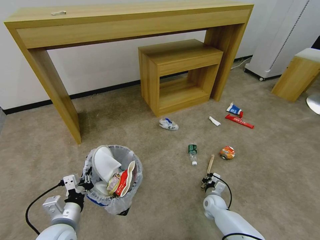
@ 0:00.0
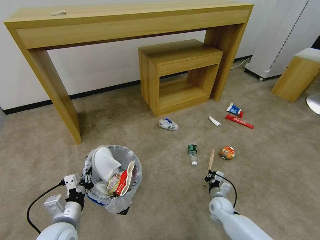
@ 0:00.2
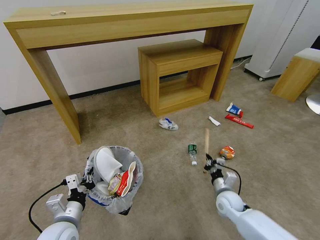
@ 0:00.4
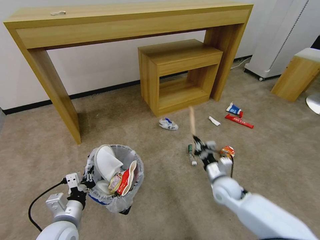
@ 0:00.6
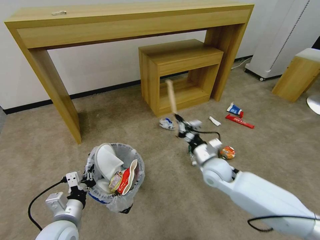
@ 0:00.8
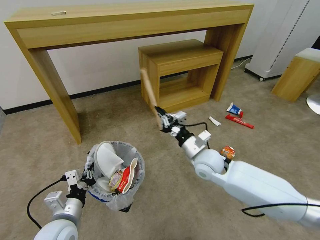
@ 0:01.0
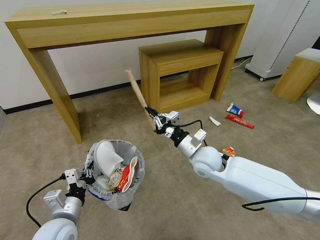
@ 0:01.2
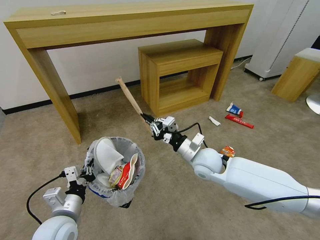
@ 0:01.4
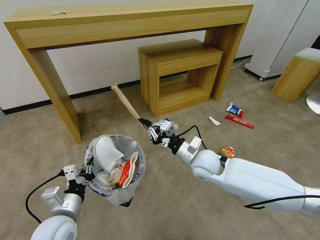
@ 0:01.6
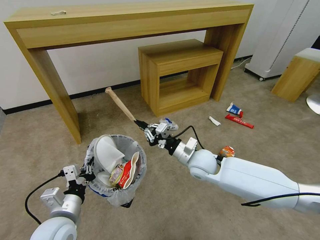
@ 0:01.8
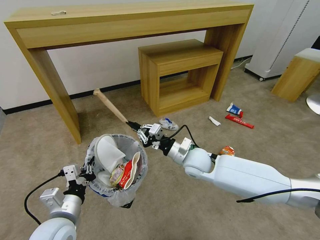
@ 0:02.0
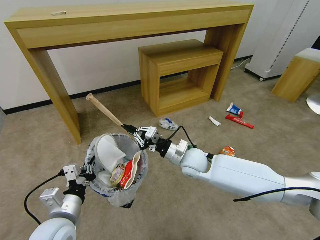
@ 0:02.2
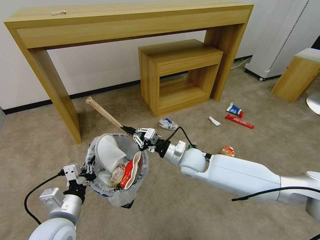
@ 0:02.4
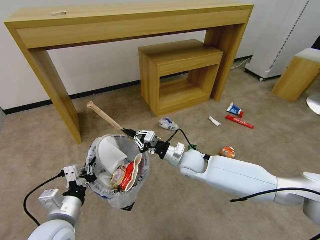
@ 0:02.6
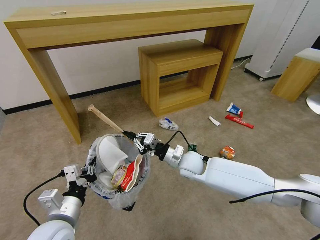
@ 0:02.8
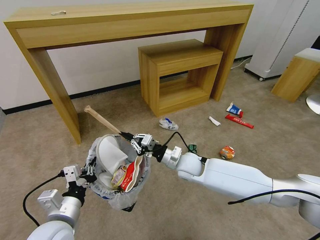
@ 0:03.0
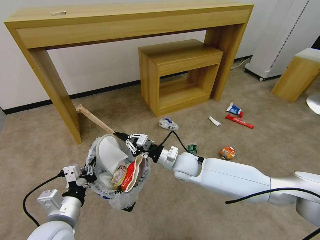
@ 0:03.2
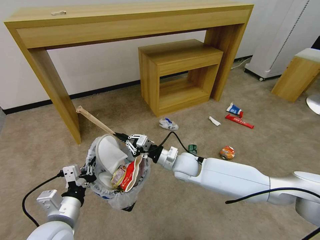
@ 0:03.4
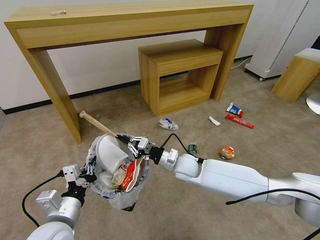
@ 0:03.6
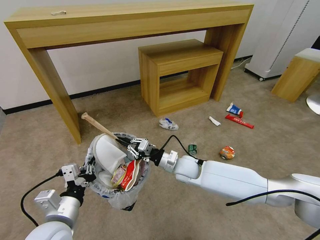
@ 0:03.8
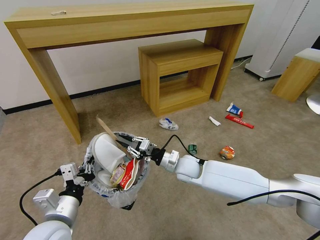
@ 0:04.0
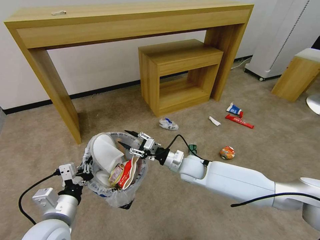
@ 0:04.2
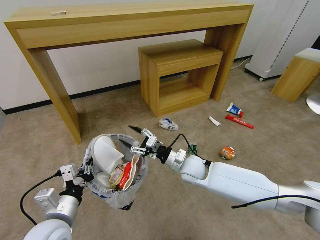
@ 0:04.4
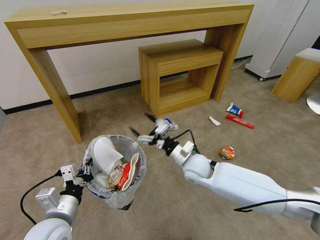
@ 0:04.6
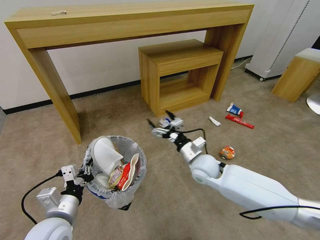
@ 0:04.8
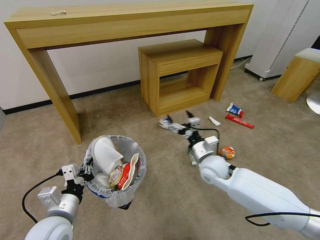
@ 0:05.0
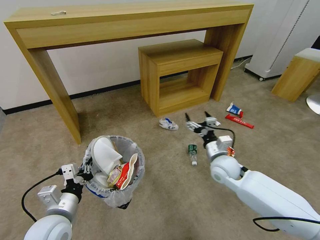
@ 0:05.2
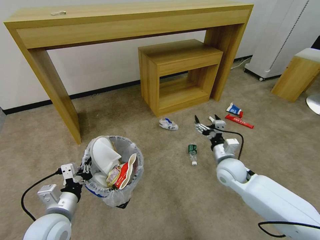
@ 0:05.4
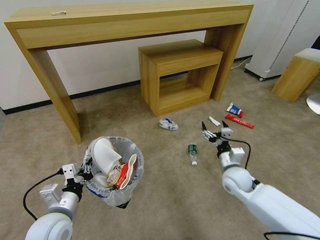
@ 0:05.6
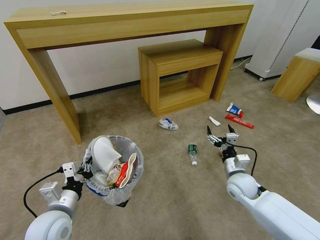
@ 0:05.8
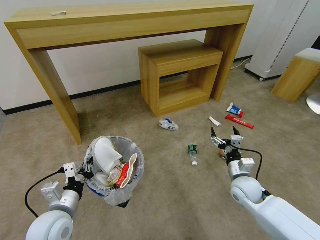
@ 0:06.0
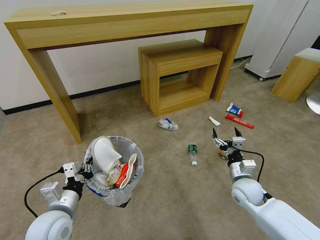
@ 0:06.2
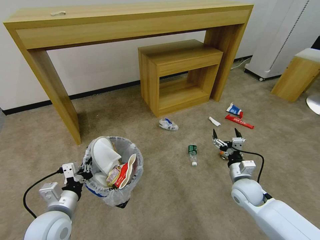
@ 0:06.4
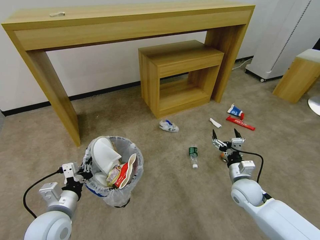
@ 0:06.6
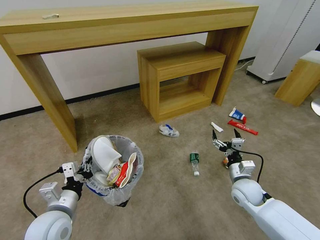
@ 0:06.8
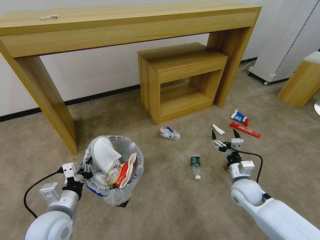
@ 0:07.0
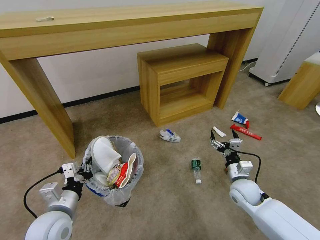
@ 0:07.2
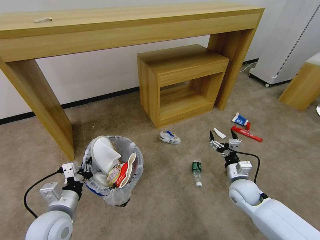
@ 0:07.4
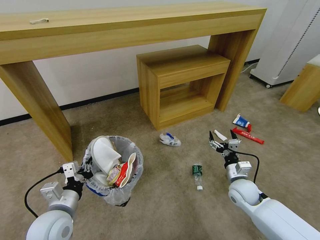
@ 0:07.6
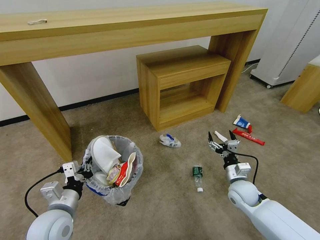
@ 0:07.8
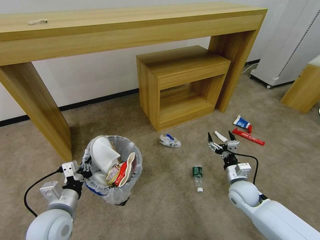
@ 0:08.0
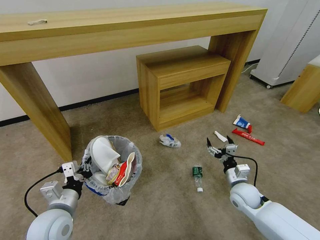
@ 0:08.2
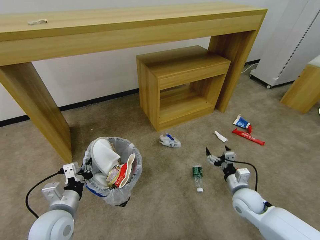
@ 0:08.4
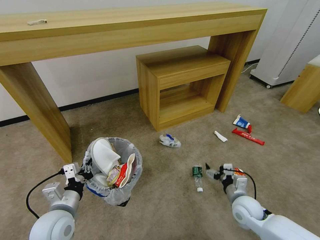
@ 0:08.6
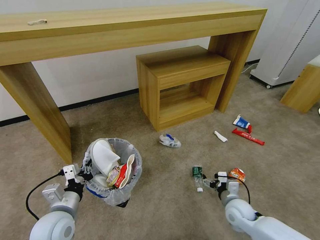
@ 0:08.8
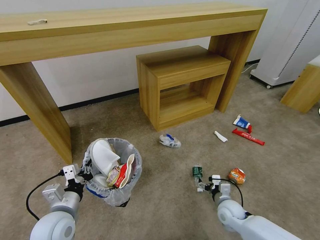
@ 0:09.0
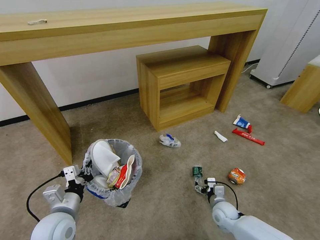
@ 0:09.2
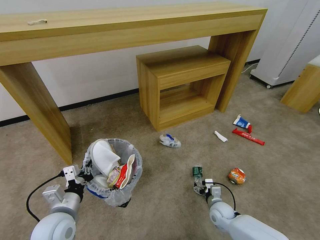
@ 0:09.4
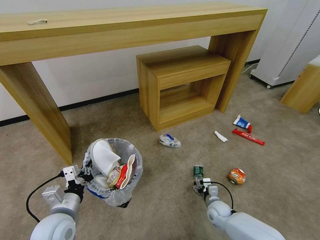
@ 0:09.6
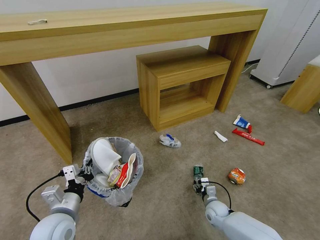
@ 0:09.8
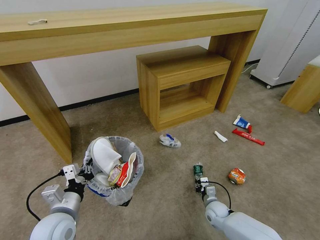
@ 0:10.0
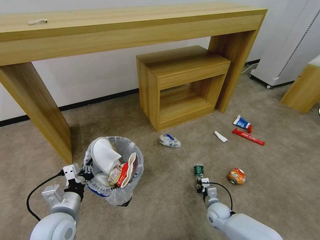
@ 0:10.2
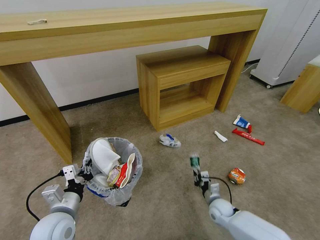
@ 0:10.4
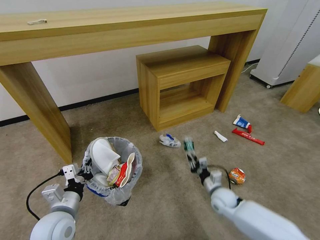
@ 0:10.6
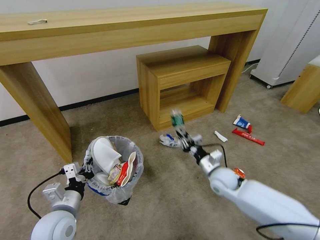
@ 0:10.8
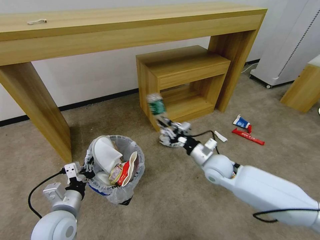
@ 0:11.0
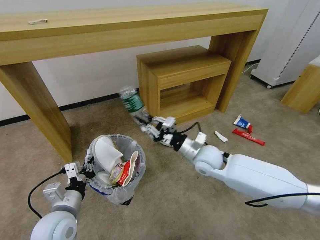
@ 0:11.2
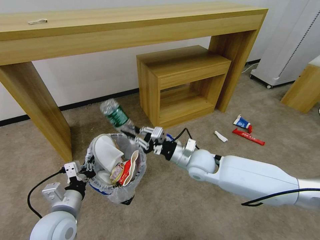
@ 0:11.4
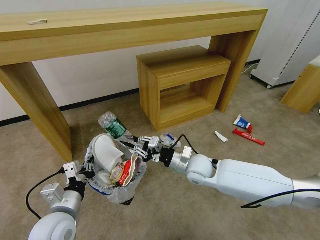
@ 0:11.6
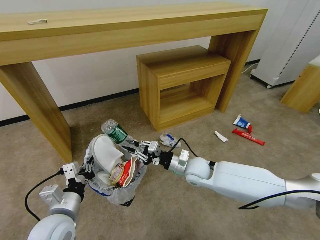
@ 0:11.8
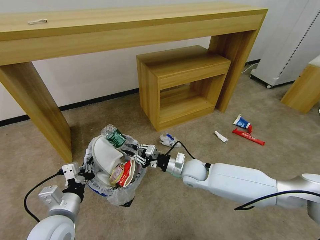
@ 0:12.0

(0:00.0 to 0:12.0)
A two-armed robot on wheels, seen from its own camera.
Task of the whole recording: Pick up the trash bin and place the garbage on the floor into it.
0:00.0 - 0:01.6: The right gripper shifts some 30 cm upward.
0:01.6 - 0:03.0: The right gripper ends up some 5 cm from where it was.
0:03.0 - 0:04.4: The right gripper opens its fingers.
0:04.4 - 0:06.0: The right gripper heads to the right, covering roughly 20 cm.
0:07.6 - 0:09.0: The right gripper heads downward, covering approximately 10 cm.
0:09.0 - 0:10.4: The right gripper goes approximately 5 cm downward, and closes its fingers.
0:10.4 - 0:12.0: The right gripper is displaced upward, to the left and forward by some 25 cm.

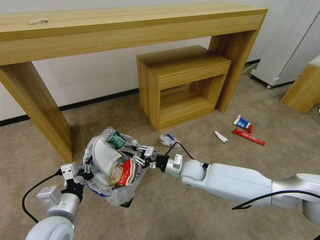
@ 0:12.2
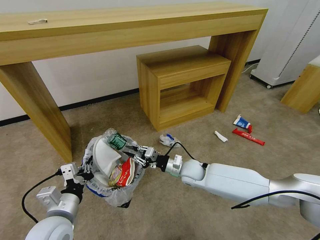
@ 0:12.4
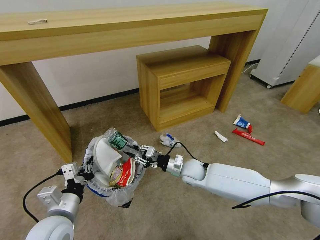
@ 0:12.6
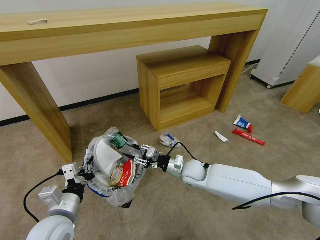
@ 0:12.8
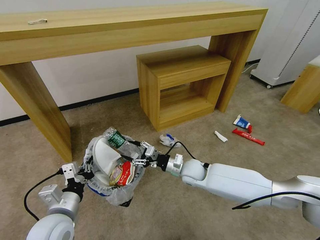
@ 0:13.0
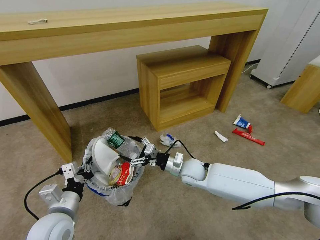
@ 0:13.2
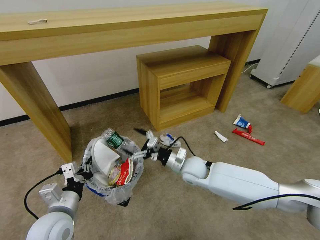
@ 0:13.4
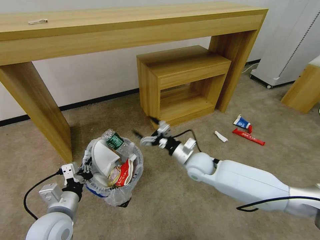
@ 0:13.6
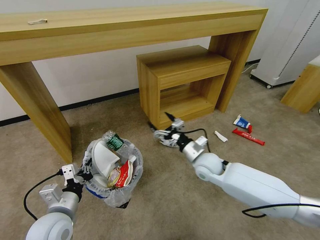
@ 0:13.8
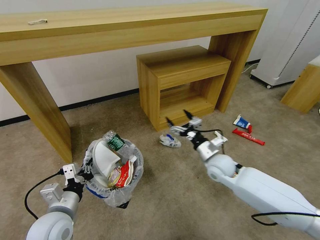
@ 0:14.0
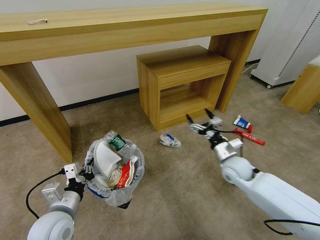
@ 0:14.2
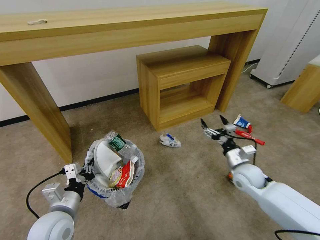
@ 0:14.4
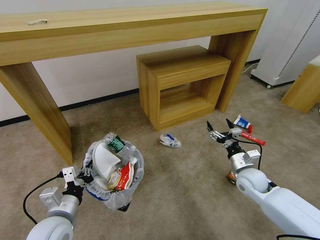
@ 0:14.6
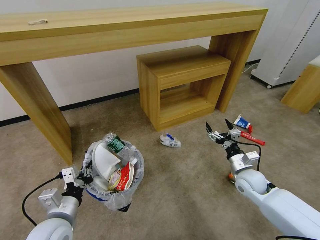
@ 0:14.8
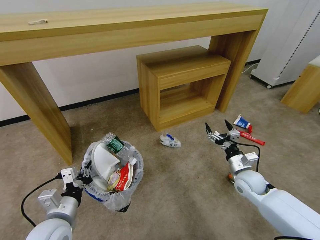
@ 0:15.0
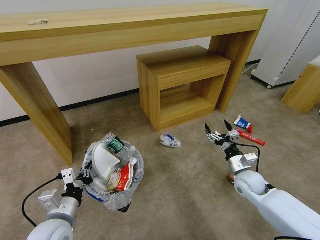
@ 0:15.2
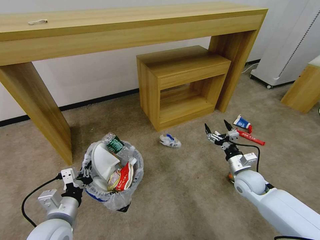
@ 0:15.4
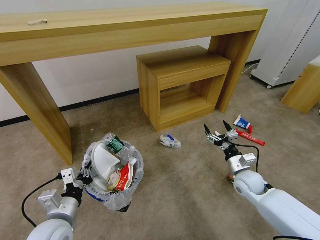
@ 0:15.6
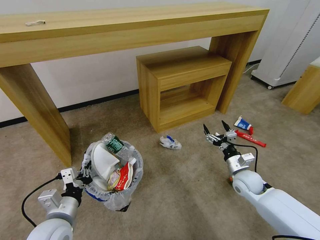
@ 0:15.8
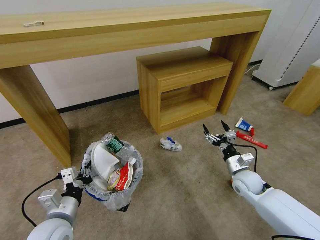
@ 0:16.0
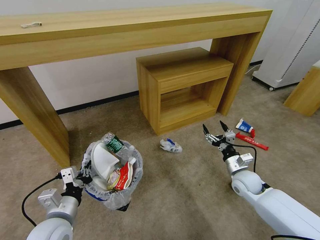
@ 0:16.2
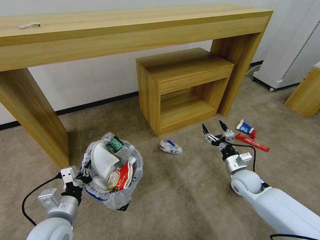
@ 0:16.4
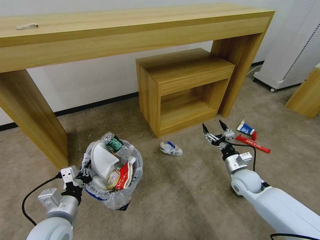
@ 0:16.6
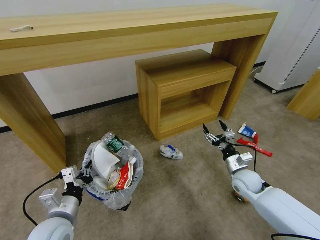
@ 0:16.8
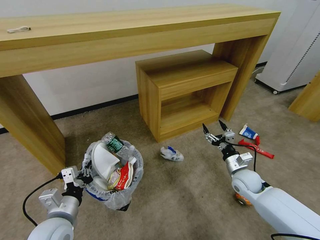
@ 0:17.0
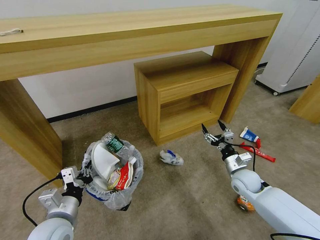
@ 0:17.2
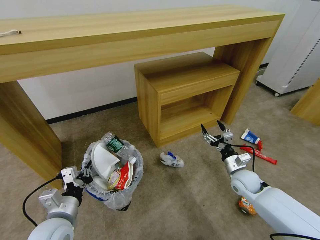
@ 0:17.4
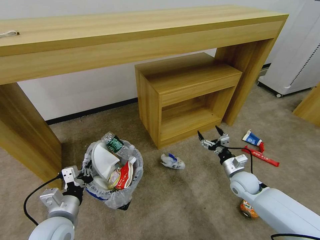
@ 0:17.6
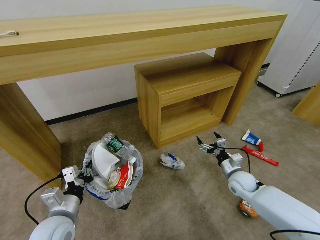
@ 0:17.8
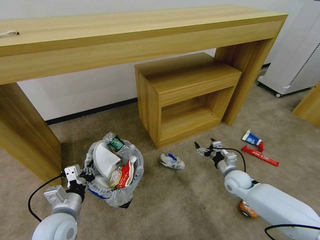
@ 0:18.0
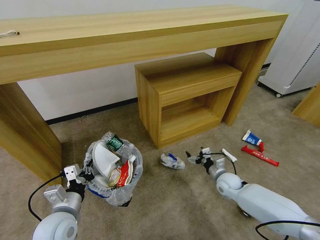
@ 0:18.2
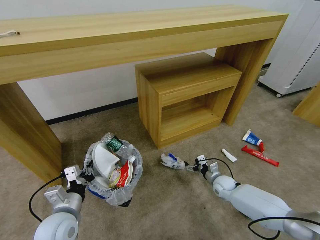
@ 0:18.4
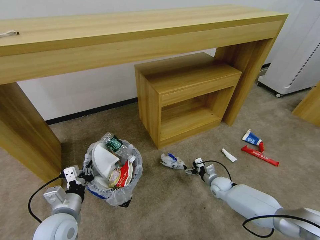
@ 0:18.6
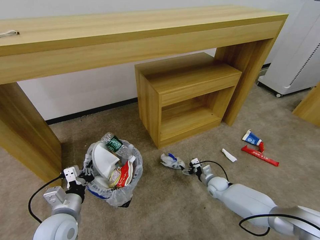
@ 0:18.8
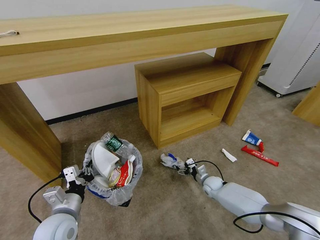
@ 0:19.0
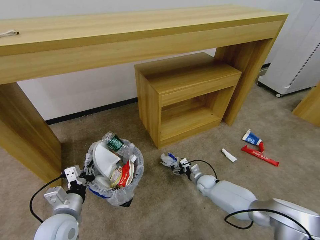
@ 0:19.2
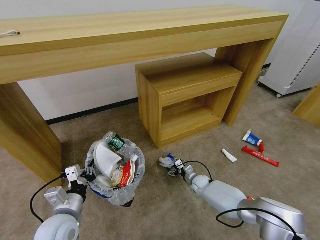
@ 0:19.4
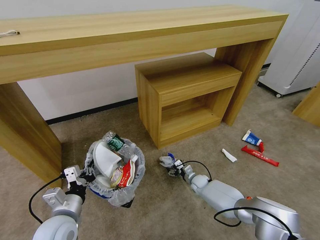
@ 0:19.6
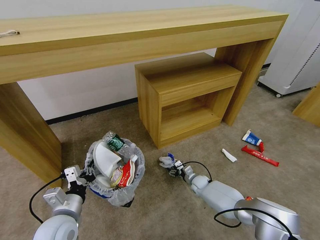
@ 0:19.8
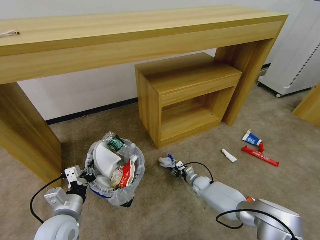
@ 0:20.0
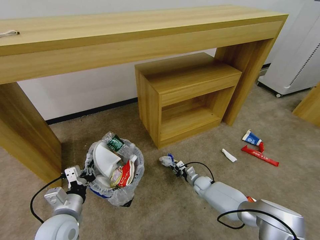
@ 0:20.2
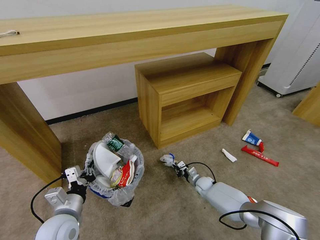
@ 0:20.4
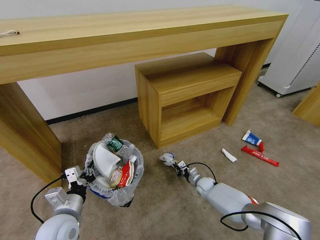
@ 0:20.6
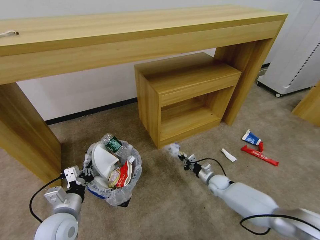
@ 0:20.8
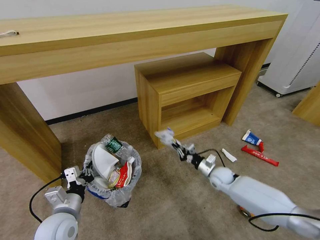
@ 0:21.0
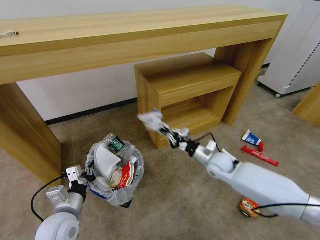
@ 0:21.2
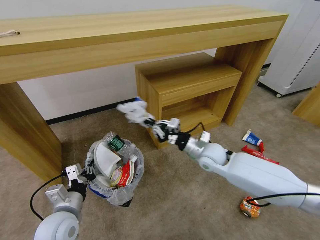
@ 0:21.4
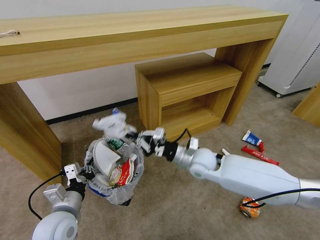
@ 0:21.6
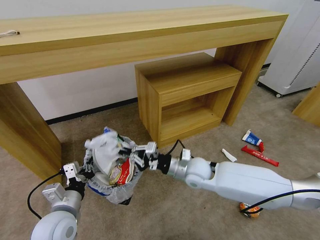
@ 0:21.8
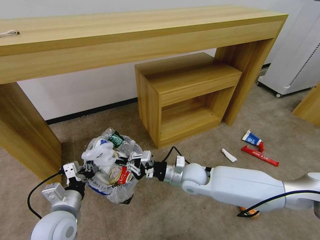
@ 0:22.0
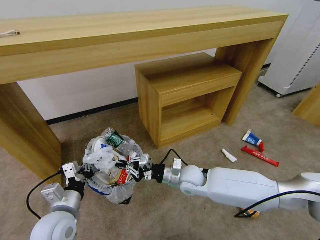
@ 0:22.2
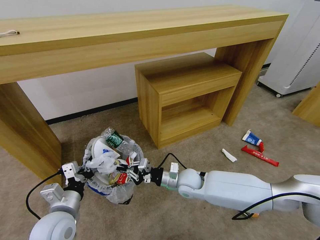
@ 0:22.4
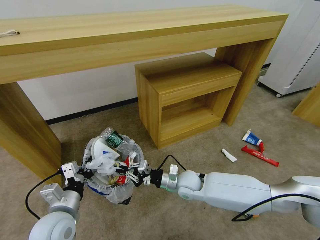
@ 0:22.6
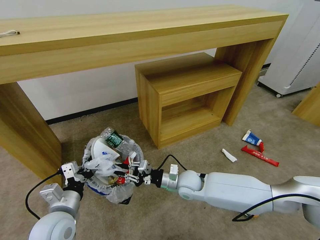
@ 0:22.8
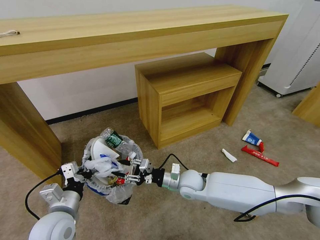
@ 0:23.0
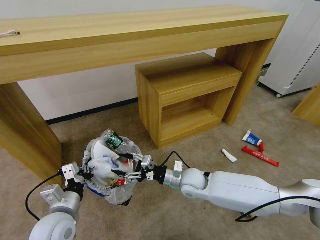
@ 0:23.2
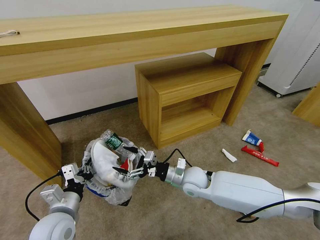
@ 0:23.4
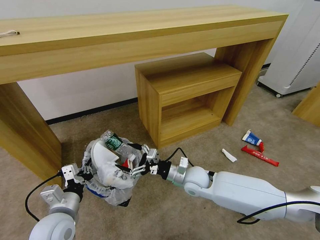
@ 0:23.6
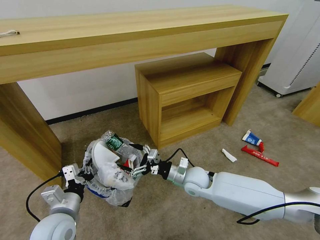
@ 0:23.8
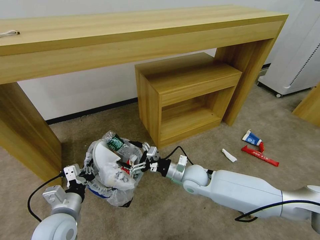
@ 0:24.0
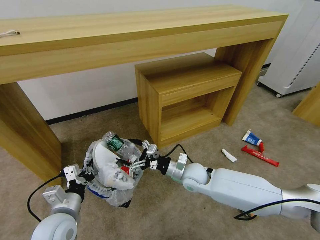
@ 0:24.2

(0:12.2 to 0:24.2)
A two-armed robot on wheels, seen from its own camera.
Task of the whole recording: Pick up the trash bin and place the garbage on the floor into it.
0:12.2 - 0:13.8: The right gripper heads to the right, covering about 5 cm, and opens its fingers.
0:13.8 - 0:15.2: The right gripper travels to the right by about 15 cm.
0:16.6 - 0:18.2: The right gripper travels downward by roughly 10 cm.
0:18.2 - 0:19.8: The right gripper shifts some 15 cm downward and to the left.
0:19.8 - 0:21.2: The right gripper goes approximately 20 cm upward, and closes up.
0:21.2 - 0:22.6: The right gripper moves to the left and backward, approximately 15 cm.
0:22.6 - 0:24.2: The right gripper opens up.
